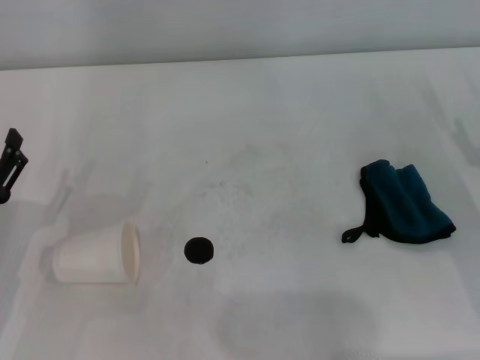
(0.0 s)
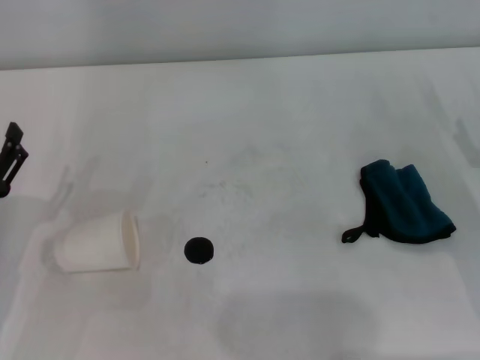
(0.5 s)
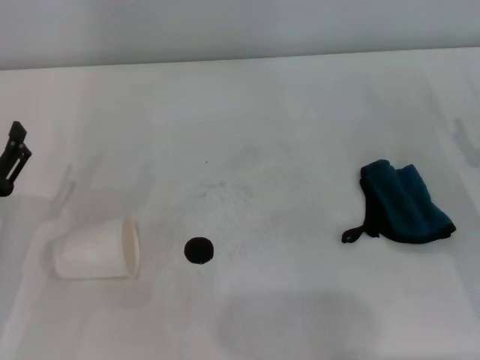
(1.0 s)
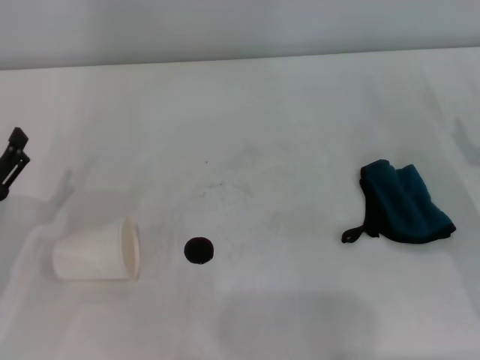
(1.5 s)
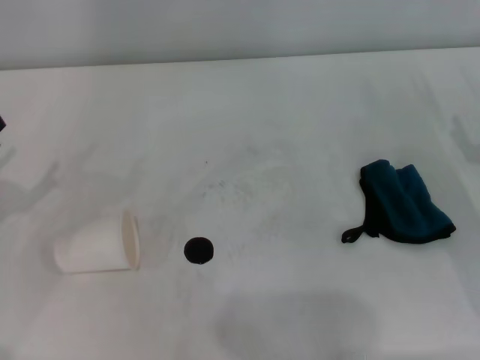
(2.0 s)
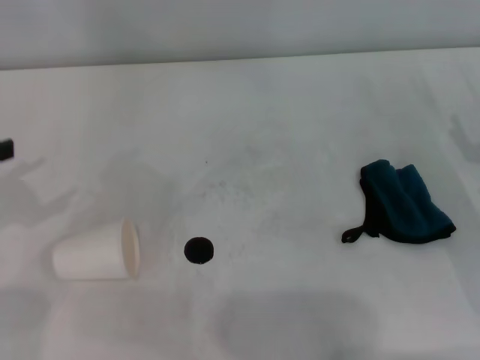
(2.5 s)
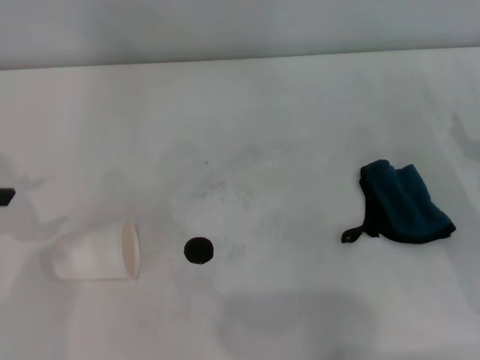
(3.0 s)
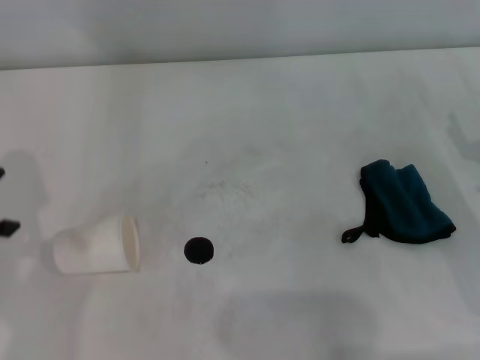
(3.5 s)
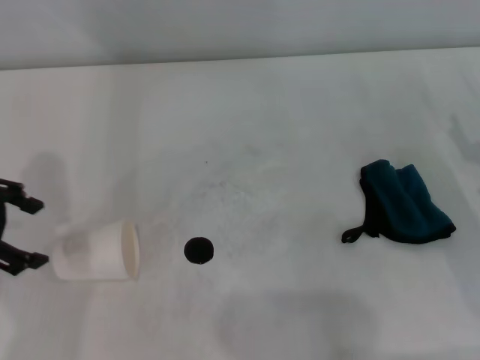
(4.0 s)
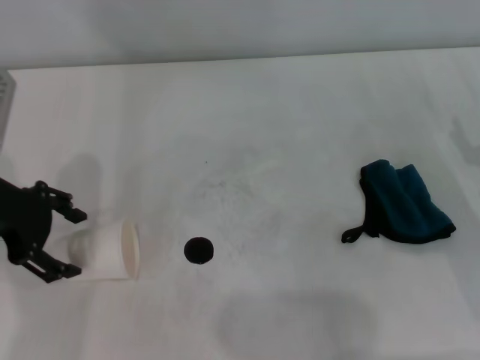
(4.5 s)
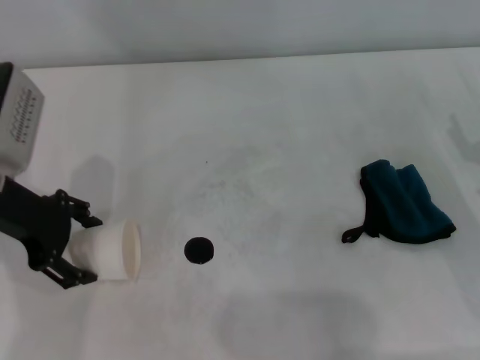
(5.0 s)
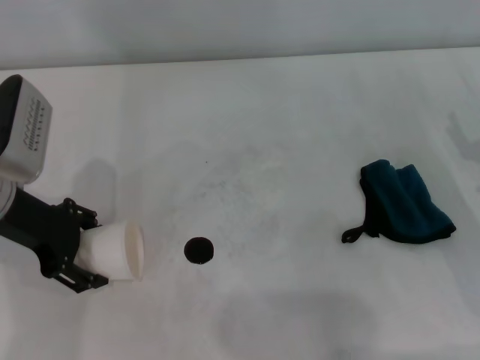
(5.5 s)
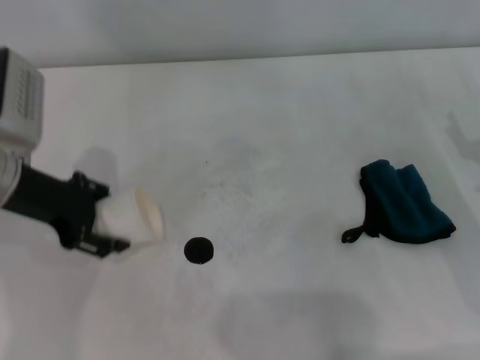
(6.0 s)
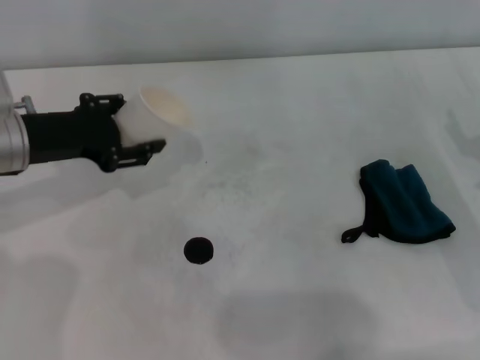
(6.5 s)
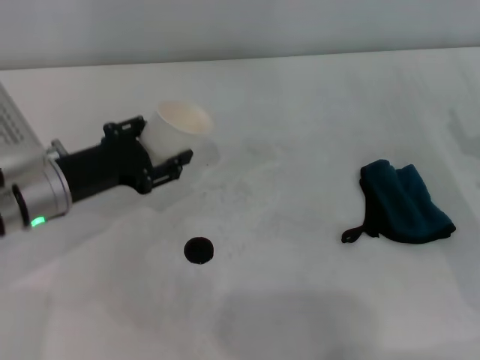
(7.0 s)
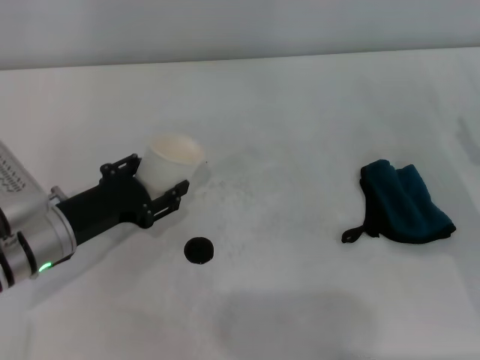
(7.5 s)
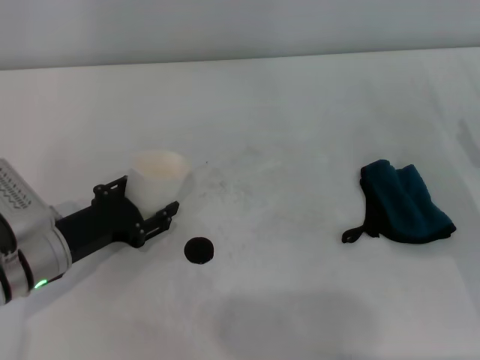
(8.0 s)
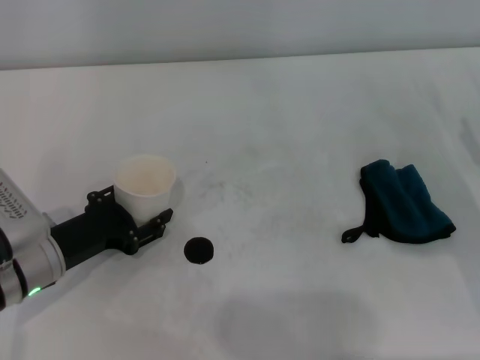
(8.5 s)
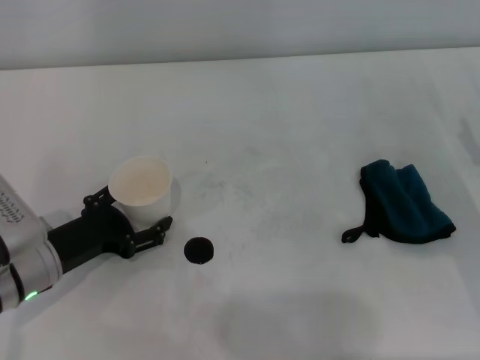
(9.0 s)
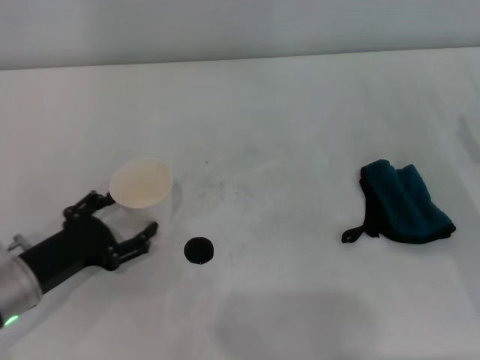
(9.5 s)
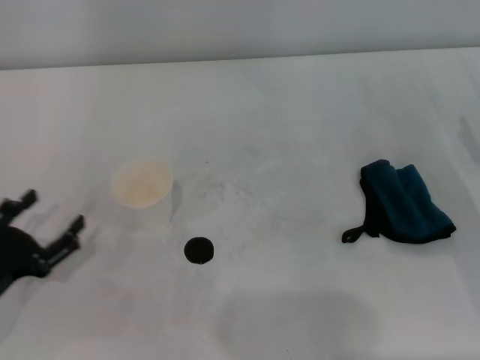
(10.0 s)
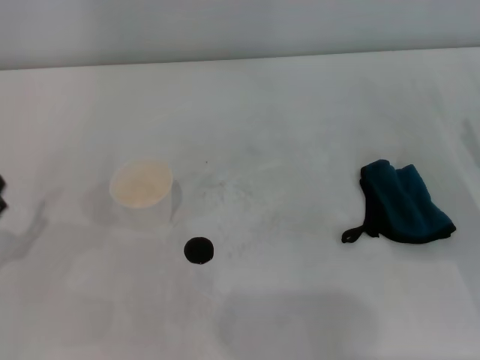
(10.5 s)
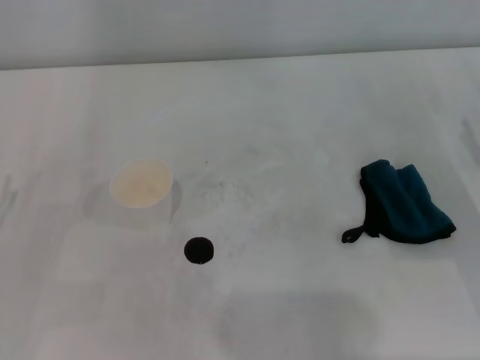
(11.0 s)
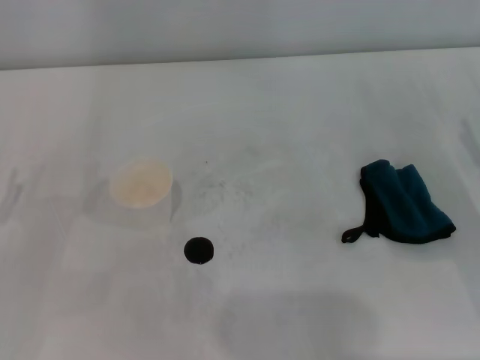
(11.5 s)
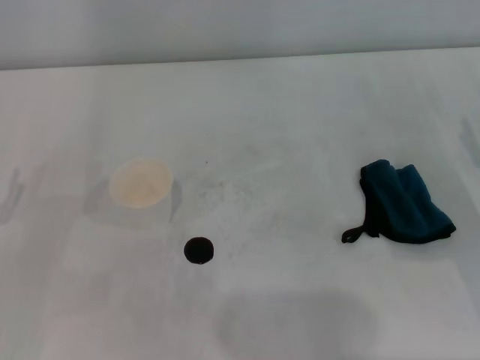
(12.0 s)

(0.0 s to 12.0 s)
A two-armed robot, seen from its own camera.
Step, 0.0 s - 5.5 s: Grasp the paper cup with the left gripper.
Step, 6.0 s - 9.5 s: Stand the paper cup upright with the left gripper.
0.0 s - 2.0 s: The left gripper moves to the left, some 5 cm.
2.0 s - 4.0 s: The left gripper travels upward, forward and to the right by approximately 15 cm.
4.0 s - 6.0 s: The left gripper moves to the right and downward, roughly 10 cm, and closes up.
6.0 s - 8.0 s: The left gripper shifts about 15 cm downward and backward.
8.0 s - 10.0 s: The left gripper heads backward and to the left, covering about 10 cm, and opens.

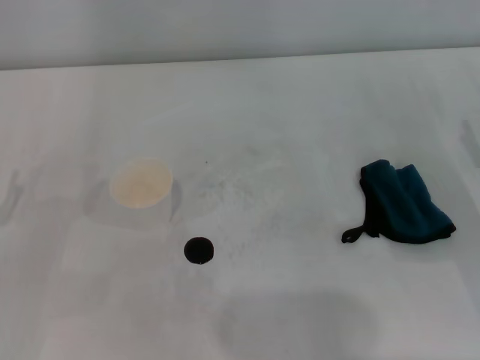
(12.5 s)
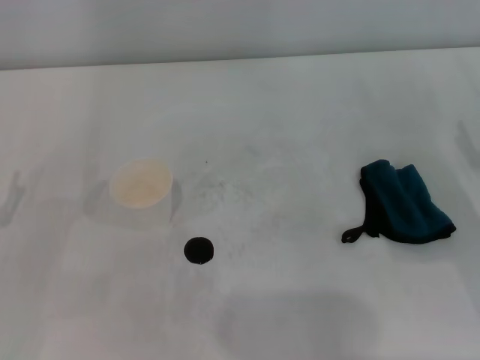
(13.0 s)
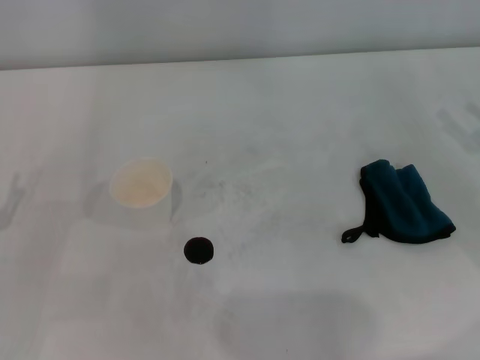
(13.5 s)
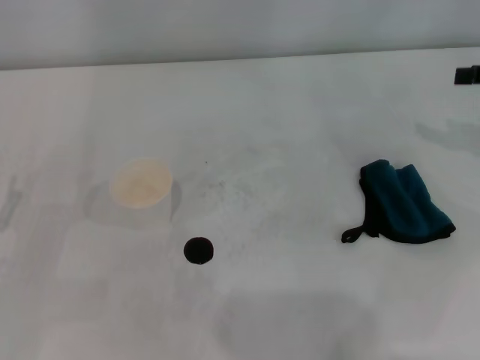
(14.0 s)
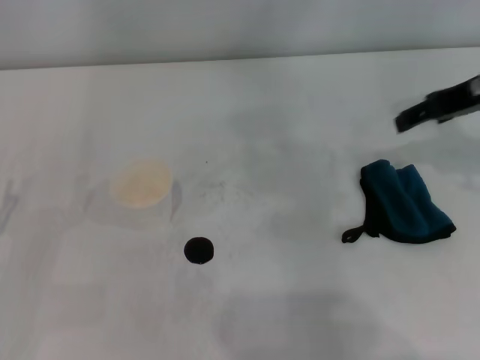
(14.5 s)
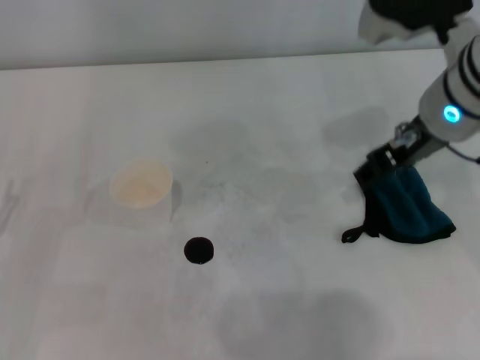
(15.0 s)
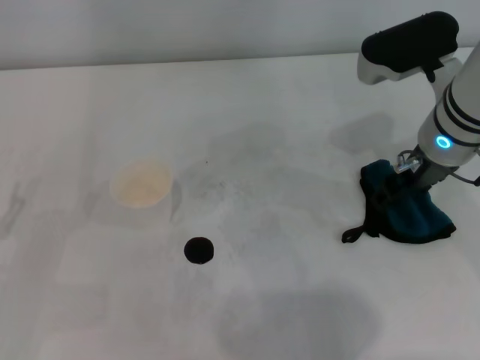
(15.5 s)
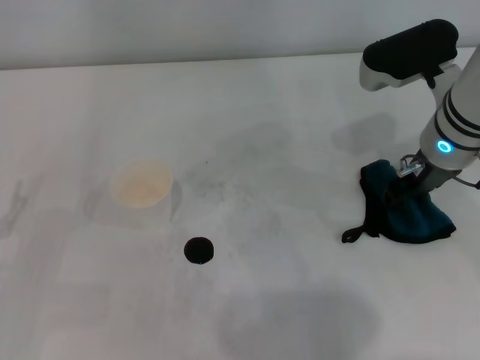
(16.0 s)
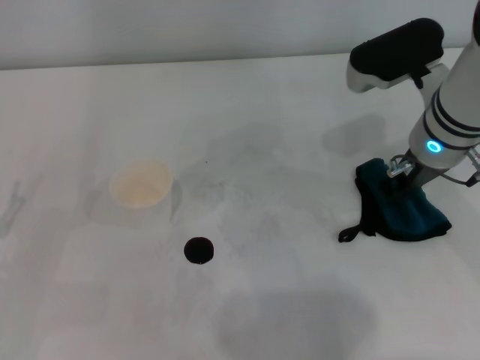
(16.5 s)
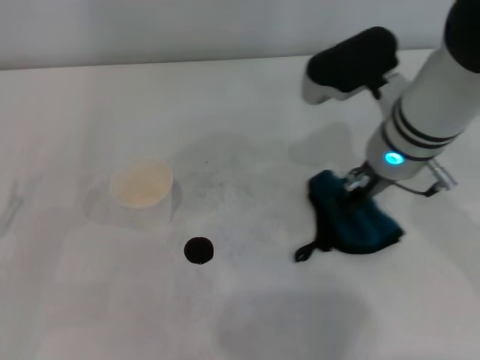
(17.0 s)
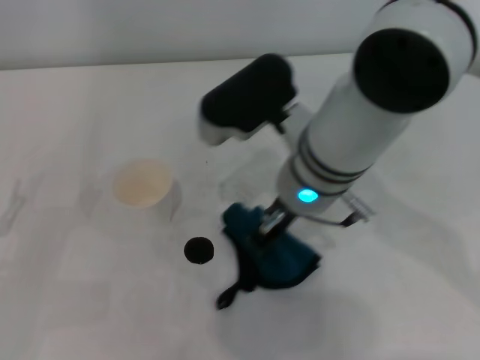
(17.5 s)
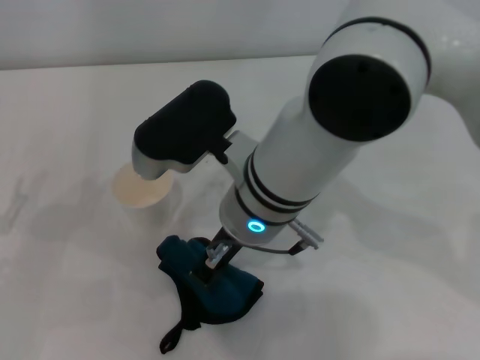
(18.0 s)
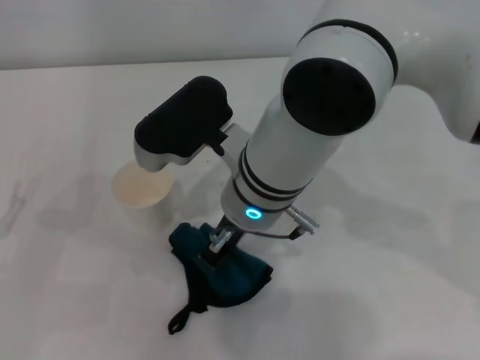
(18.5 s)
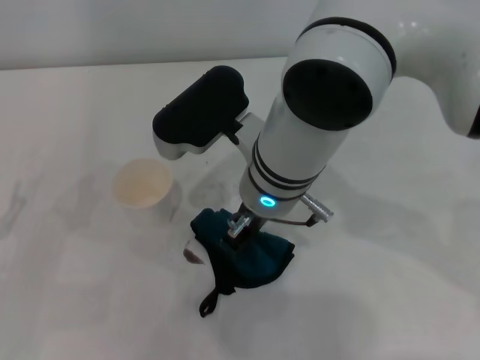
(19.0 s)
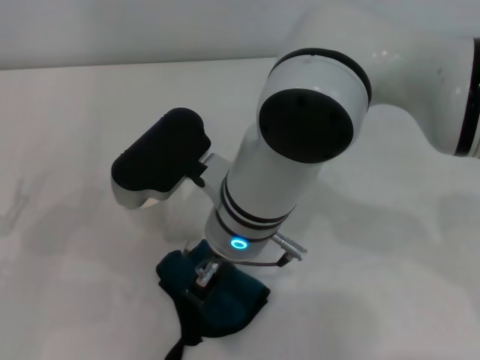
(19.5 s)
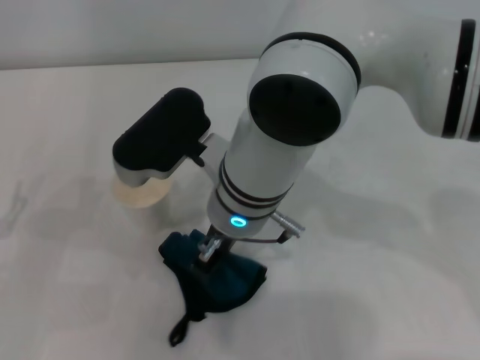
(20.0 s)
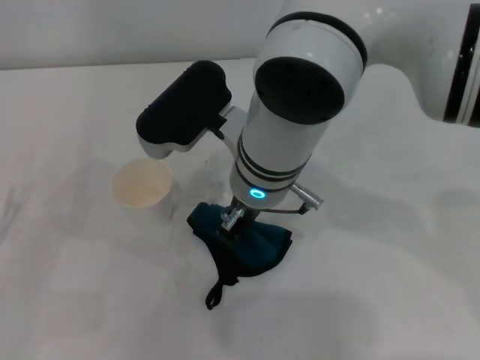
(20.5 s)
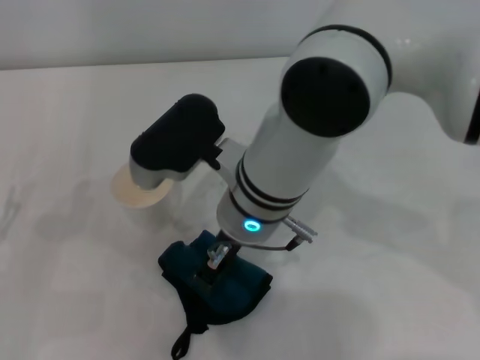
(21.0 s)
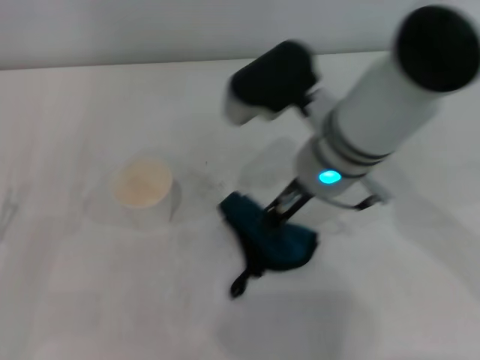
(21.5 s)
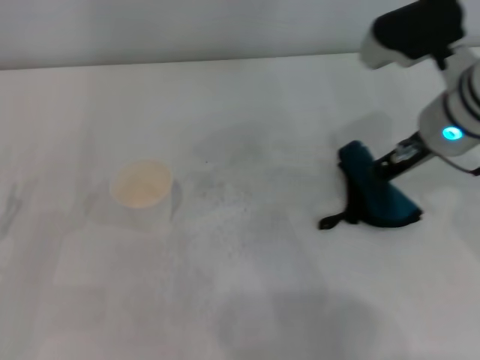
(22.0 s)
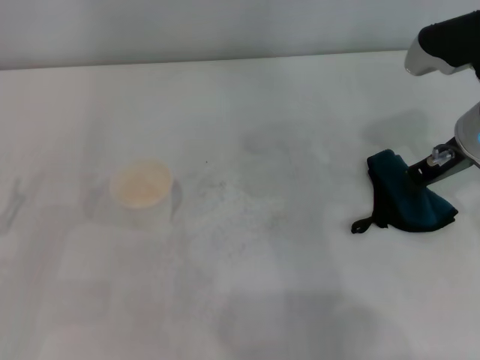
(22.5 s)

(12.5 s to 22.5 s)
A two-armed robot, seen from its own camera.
Step, 12.5 s - 16.0 s: Grasp the rag with the right gripper.
Step, 16.5 s - 22.0 s: Wipe the stains off the table with the right gripper.
12.5 s - 14.5 s: The right gripper shifts some 20 cm upward, forward and to the left.
14.5 s - 16.5 s: The right gripper heads downward and to the left, covering approximately 10 cm, and closes.
16.5 s - 18.5 s: The right gripper shifts approximately 20 cm to the left.
18.5 s - 20.5 s: There are only small adjustments of the grippers.
20.5 s - 22.5 s: The right gripper shifts approximately 25 cm to the right.

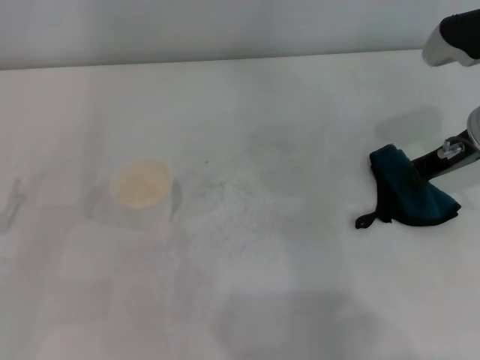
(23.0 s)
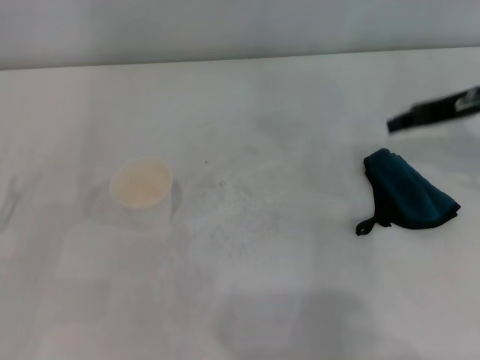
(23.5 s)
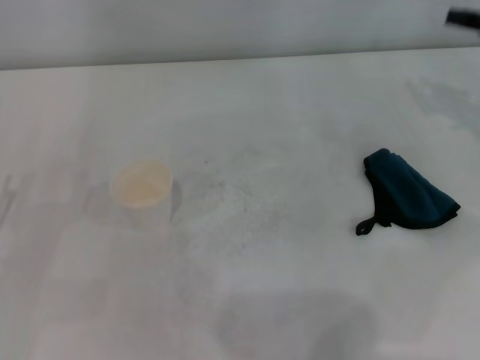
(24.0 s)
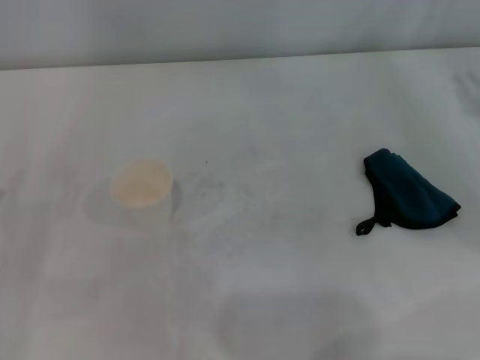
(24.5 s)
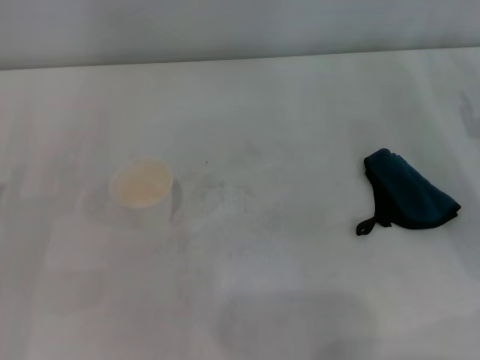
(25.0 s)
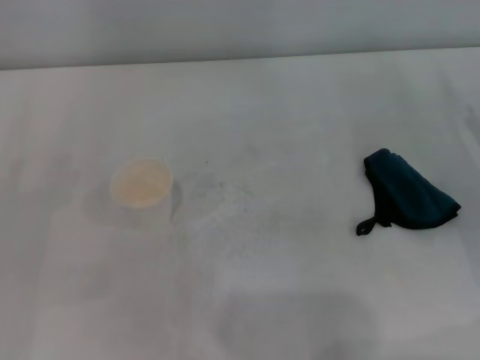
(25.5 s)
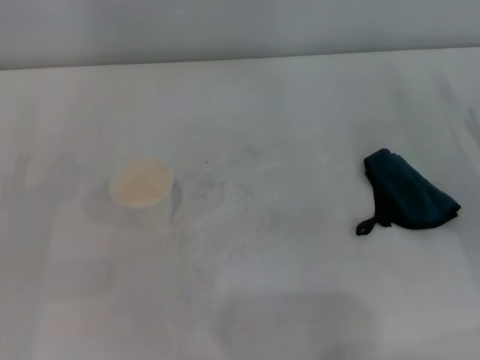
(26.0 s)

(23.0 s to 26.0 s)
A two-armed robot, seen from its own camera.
23.0 s - 24.5 s: The right gripper shifts roughly 15 cm to the right.
